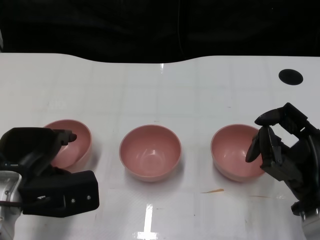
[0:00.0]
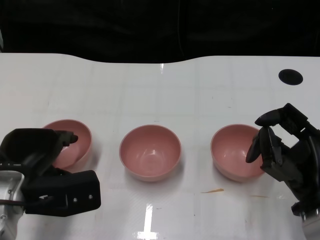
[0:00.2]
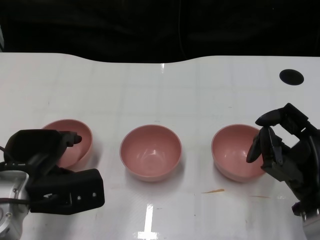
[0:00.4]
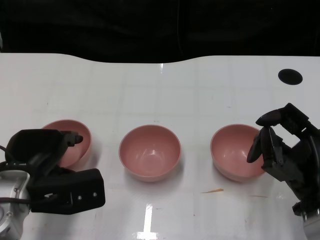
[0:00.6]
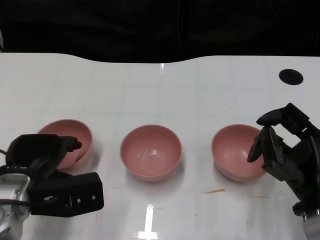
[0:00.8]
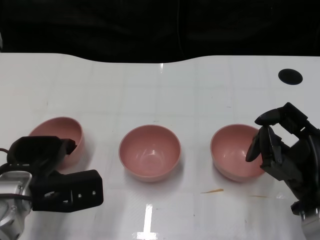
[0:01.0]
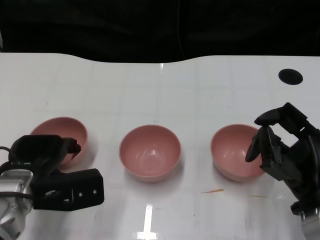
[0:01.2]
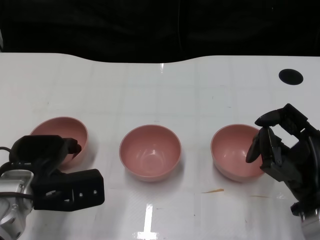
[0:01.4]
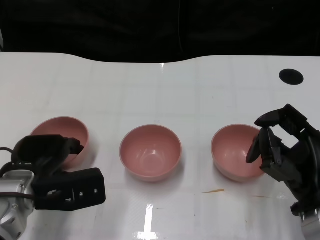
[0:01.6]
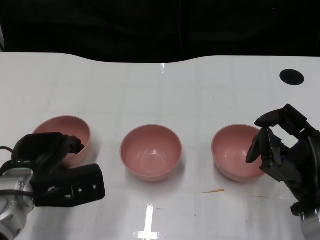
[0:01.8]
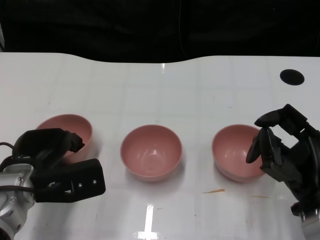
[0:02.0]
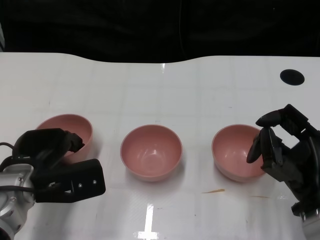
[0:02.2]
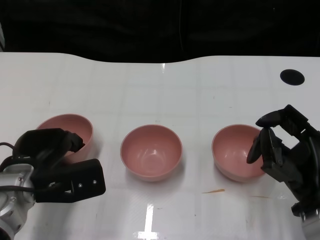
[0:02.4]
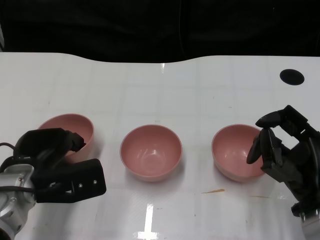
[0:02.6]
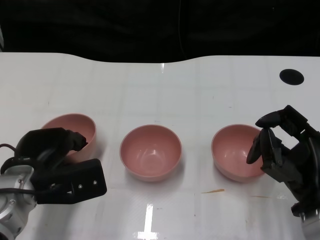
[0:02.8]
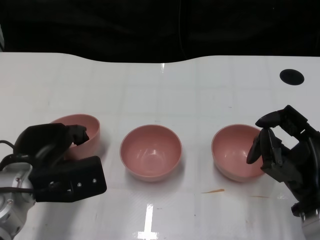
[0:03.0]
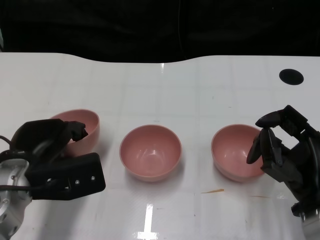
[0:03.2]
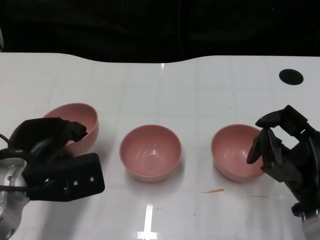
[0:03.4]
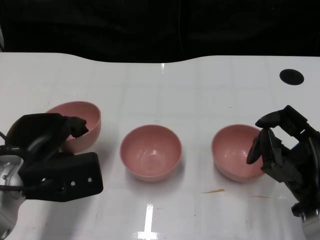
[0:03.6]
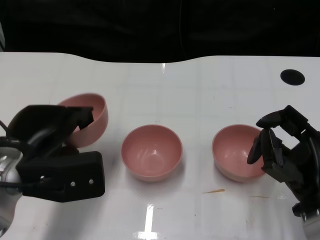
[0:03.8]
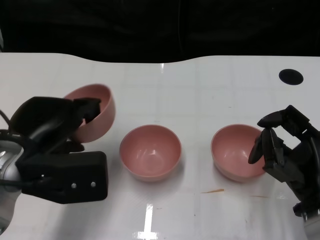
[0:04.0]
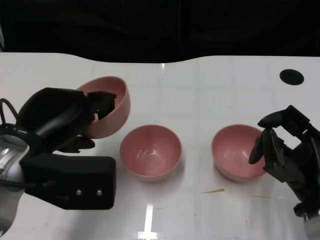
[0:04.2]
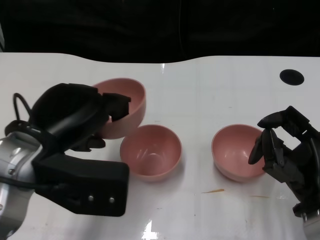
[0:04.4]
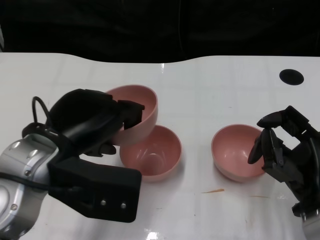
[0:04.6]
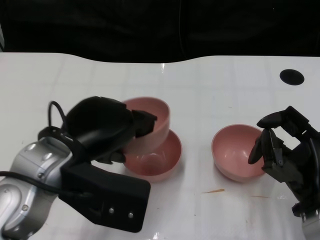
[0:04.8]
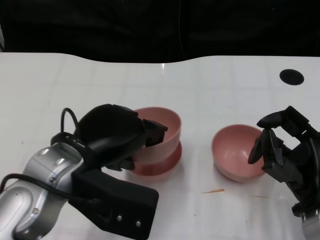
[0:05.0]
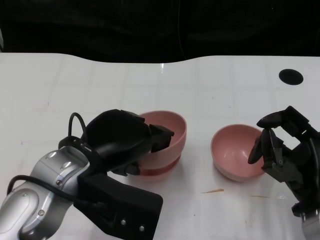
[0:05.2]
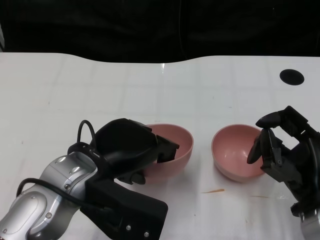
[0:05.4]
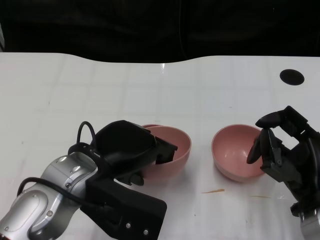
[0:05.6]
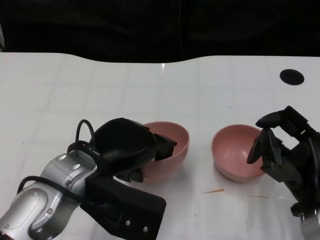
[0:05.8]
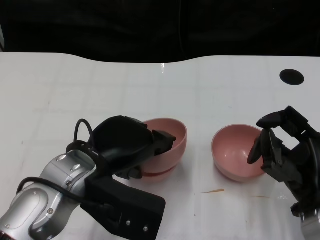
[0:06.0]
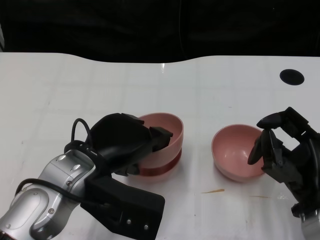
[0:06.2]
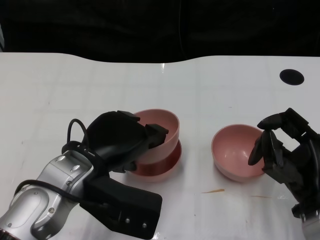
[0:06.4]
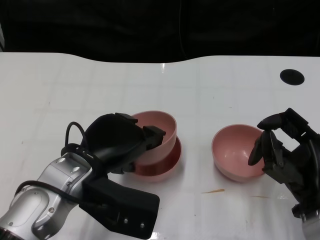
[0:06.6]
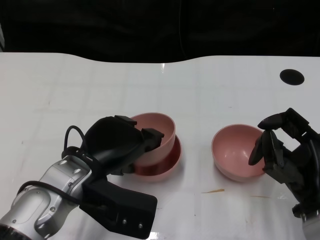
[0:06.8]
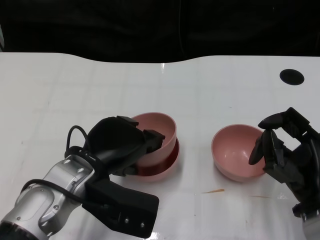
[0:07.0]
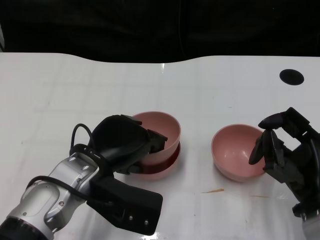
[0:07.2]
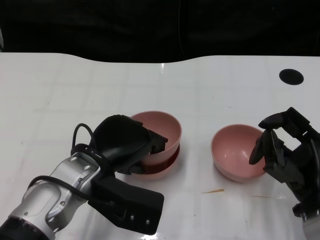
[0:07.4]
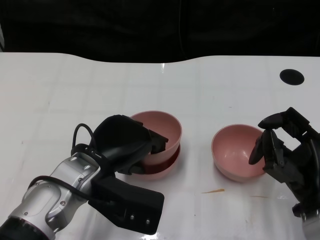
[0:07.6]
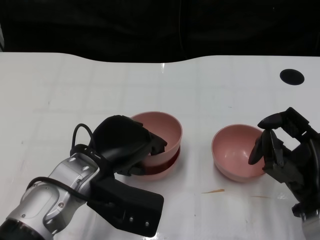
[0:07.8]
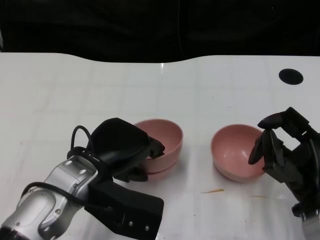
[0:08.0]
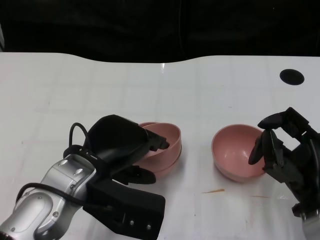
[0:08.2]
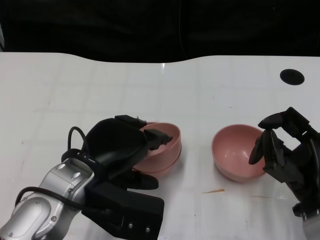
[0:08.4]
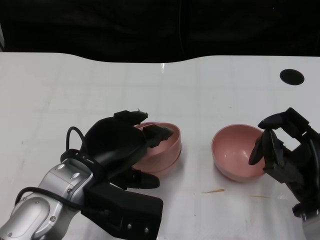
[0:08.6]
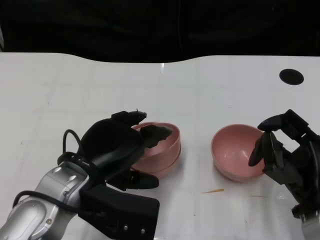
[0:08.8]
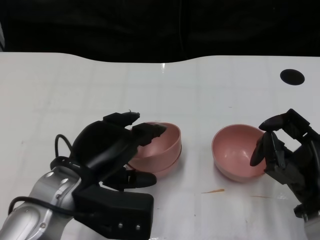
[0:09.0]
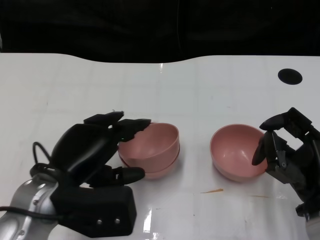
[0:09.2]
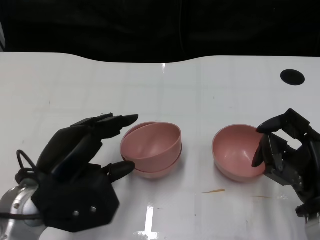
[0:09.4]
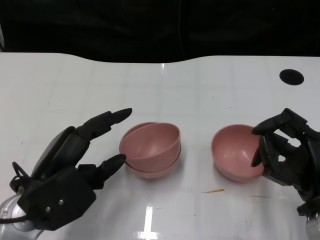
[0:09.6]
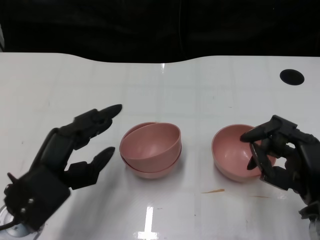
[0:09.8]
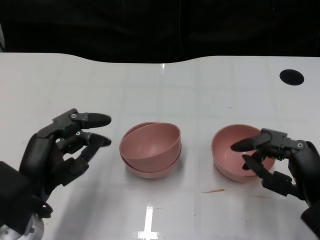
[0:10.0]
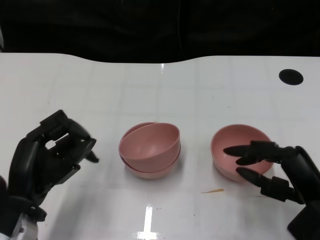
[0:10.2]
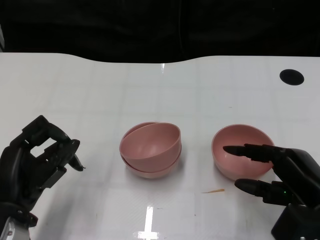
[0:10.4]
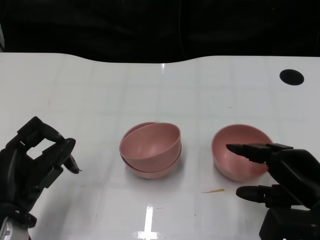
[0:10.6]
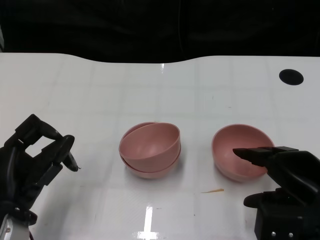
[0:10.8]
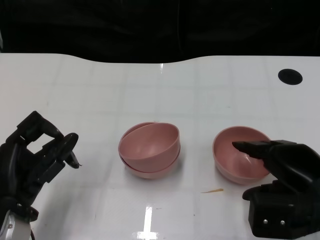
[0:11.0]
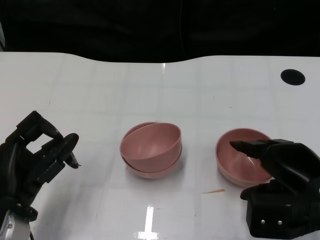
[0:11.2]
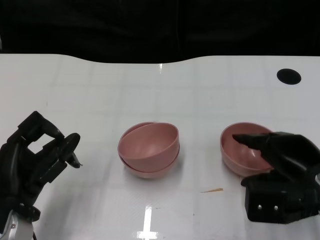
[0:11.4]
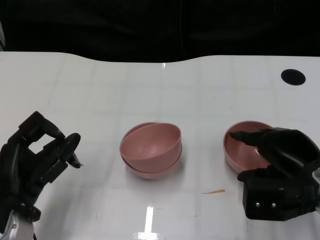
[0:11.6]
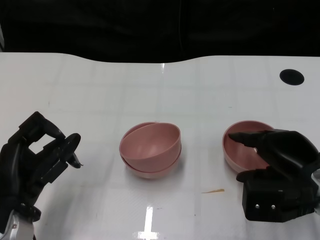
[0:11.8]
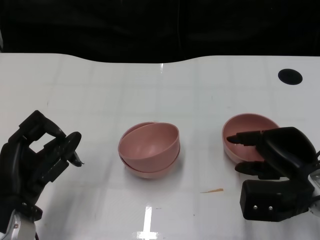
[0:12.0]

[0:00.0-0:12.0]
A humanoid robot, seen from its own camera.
Task of the whole recording: Pick up the bowl on one side of the table and place it on top of the middle bowl, then pick up the bowl on the other side of the table and place it on top of the middle bowls.
Step, 0:00.0 to 0:03.0: Grasp the bowl on the left with the left gripper.
Step, 0:03.4 to 0:08.8: Place the bowl on the left onto the bowl in the middle with left gripper.
0:00.0 to 0:03.0: The hands stay close to where they were, moving slightly.
0:03.0 to 0:04.4: The left hand is displaced upward by about 10 cm.
0:04.4 to 0:06.0: The left hand travels to the right by approximately 5 cm.
0:06.0 to 0:09.0: There are only small adjustments of the hands.
0:09.0 to 0:10.4: The left hand shifts about 10 cm to the left and downward.
0:10.4 to 0:12.0: The right hand shifts roughly 5 cm forward.

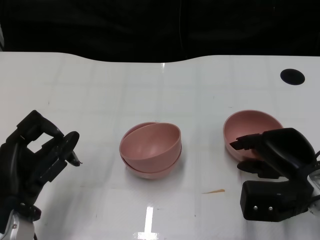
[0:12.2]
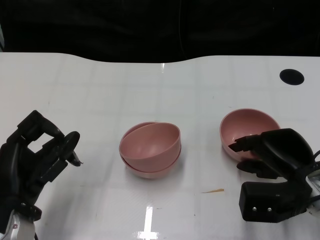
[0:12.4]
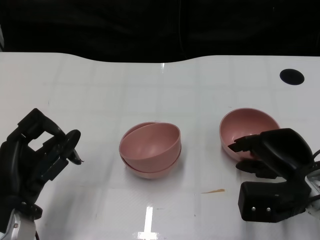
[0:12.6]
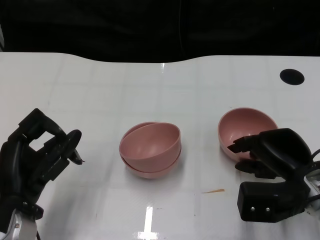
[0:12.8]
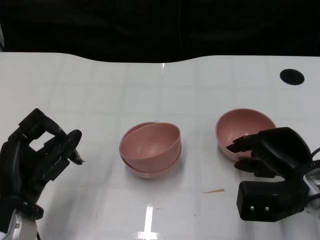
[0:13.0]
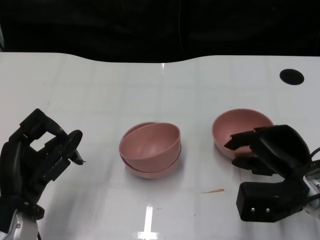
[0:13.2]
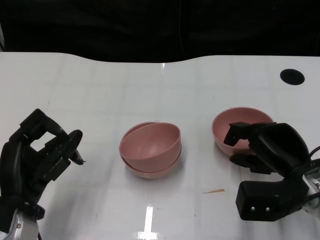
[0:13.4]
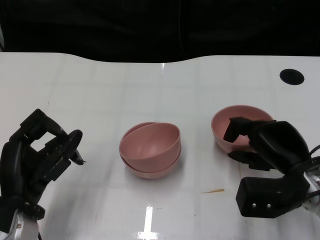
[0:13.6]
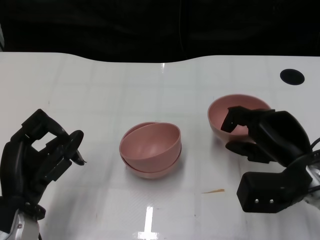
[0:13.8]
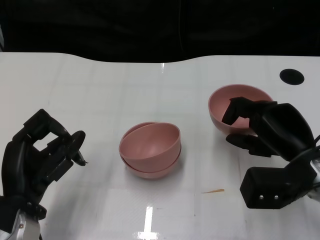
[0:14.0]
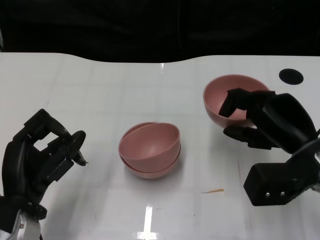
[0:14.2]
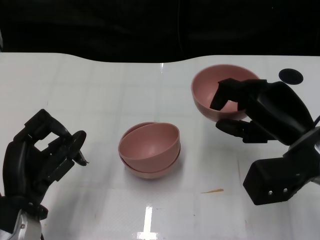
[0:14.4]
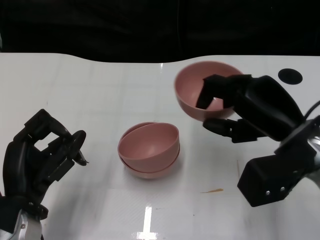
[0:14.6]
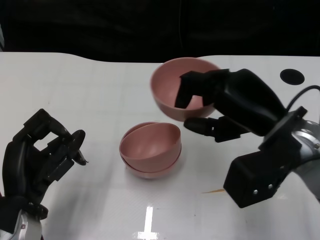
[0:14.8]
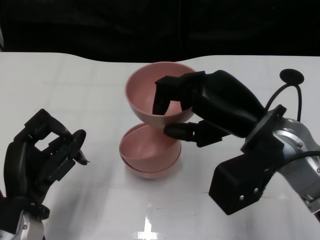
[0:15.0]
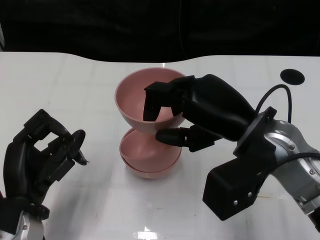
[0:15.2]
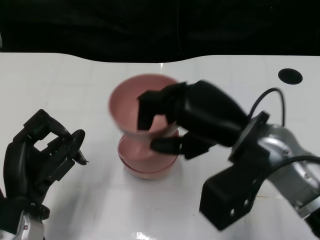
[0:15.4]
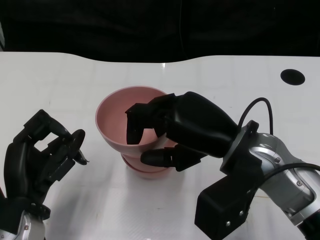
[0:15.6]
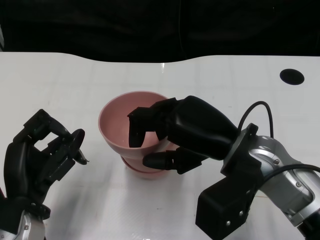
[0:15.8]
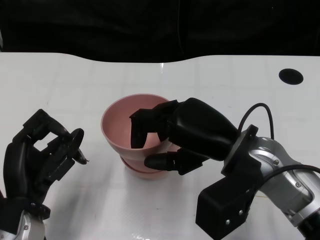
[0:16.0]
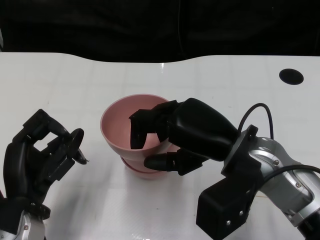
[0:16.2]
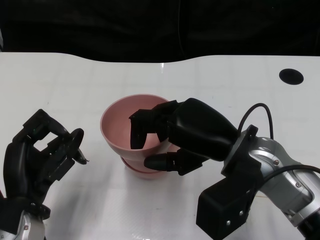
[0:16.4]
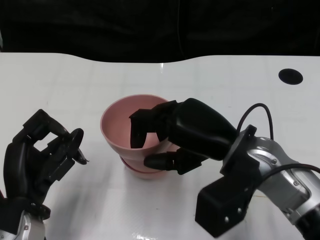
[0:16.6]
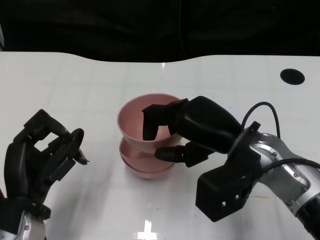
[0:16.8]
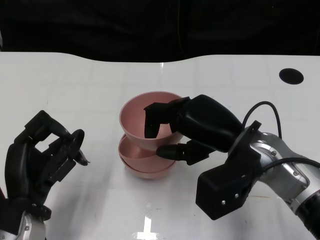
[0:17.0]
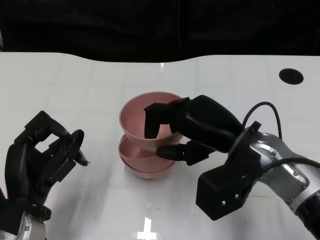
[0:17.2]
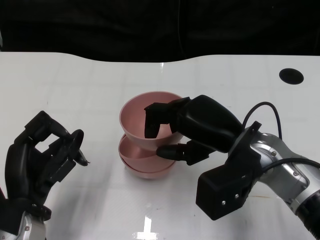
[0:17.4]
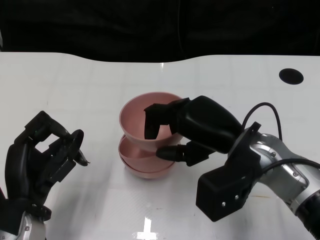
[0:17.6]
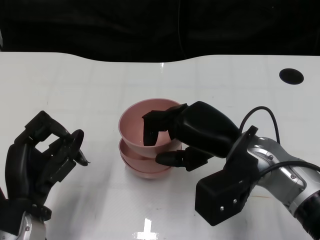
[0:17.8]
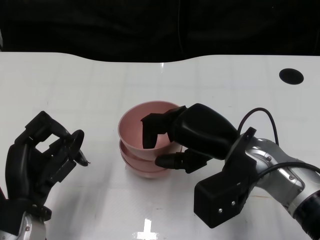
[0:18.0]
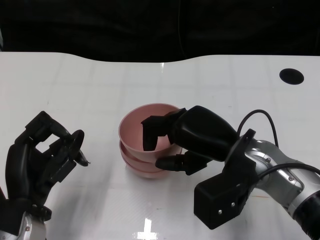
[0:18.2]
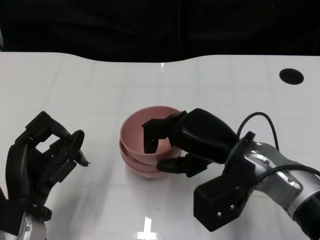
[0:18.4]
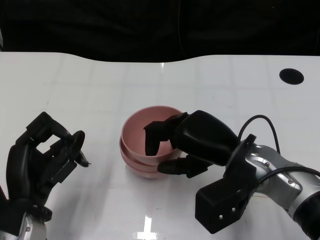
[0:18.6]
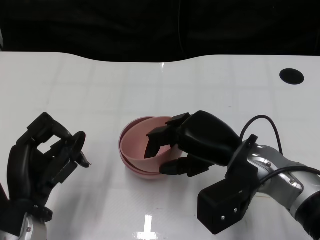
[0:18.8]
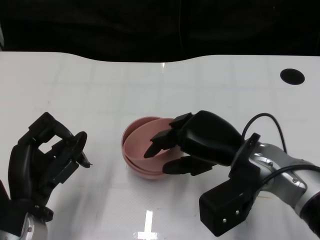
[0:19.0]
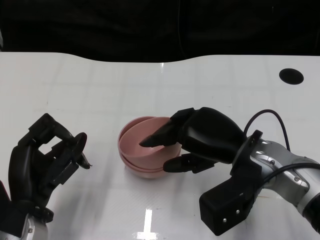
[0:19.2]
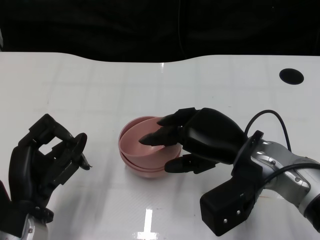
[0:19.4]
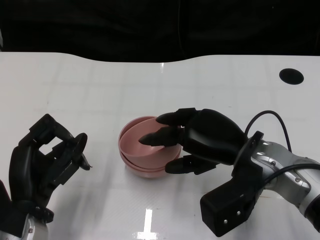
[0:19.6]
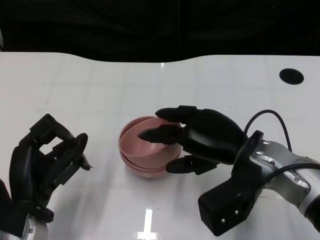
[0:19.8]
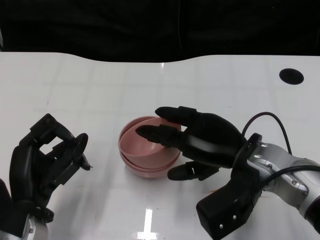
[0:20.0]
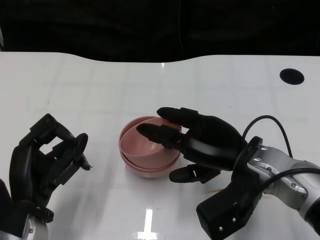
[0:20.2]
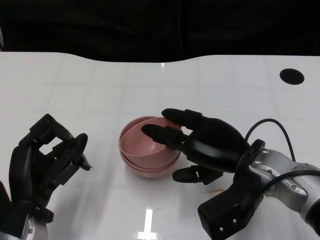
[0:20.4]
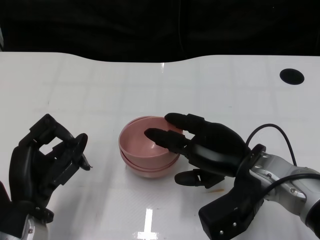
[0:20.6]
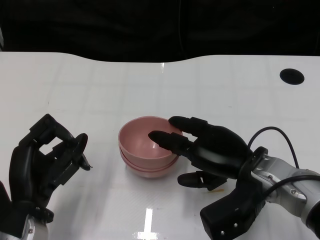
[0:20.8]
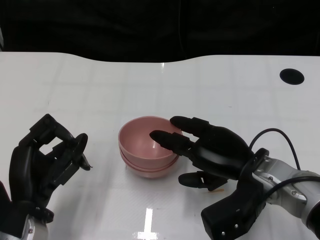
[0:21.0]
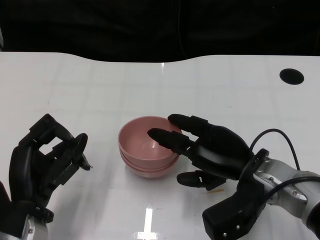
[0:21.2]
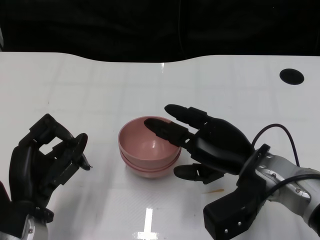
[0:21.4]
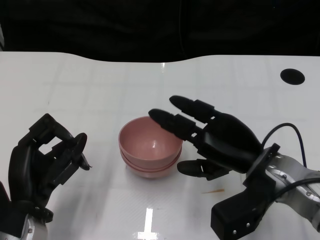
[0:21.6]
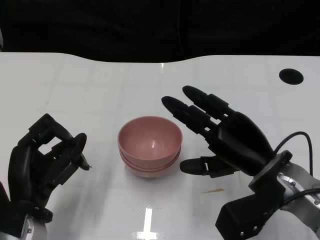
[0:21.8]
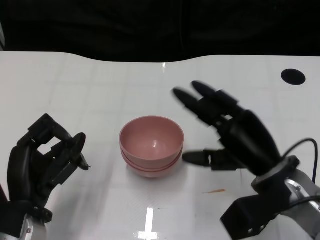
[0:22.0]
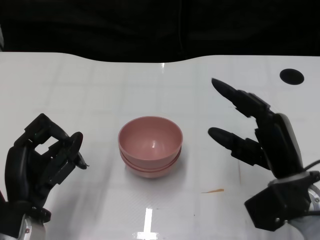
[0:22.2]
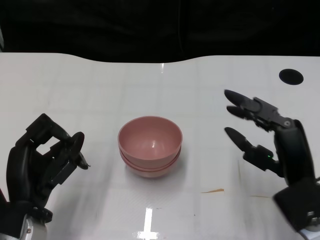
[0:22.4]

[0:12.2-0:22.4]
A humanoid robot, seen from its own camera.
Task of the whole recording: Pick up the bowl on one side of the table and place it on top of the middle bowl, then pick up the bowl on the other side of the table and place it on top of the middle bowls.
Step, 0:13.8 to 0:21.4: Place the bowl on the right onto the bowl in the middle with right gripper.
0:12.2 to 0:13.6: The hands stay close to where they were, moving slightly.
0:13.6 to 0:15.2: The right hand shifts about 15 cm upward and to the left.
0:16.6 to 0:19.4: The hands move only a little.
0:19.4 to 0:21.0: There are only small adjustments of the hands.
0:21.0 to 0:22.4: The right hand ends up some 5 cm from where it was.
